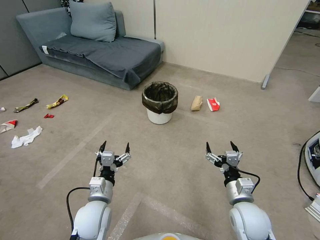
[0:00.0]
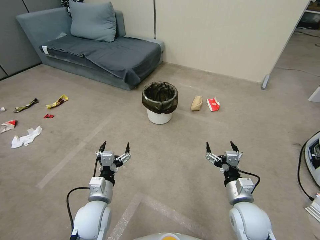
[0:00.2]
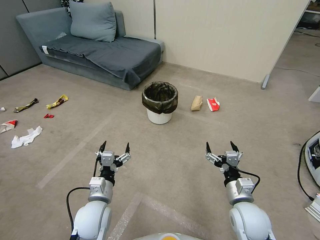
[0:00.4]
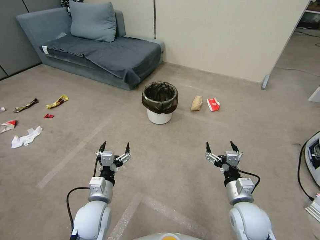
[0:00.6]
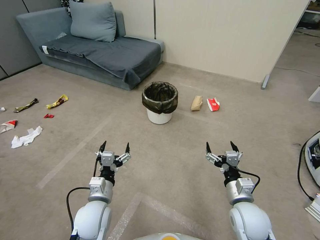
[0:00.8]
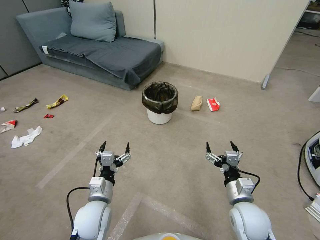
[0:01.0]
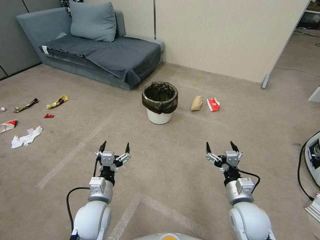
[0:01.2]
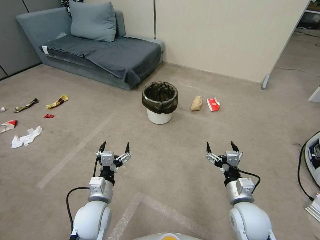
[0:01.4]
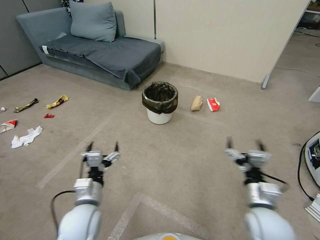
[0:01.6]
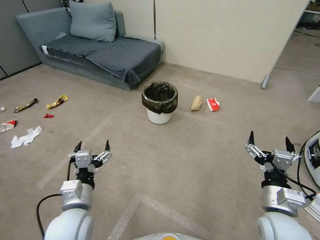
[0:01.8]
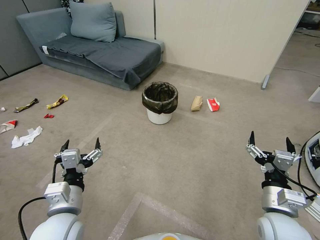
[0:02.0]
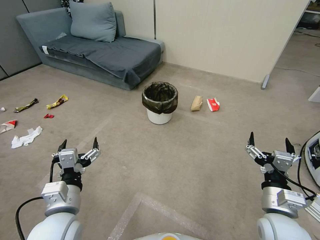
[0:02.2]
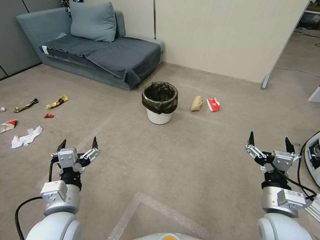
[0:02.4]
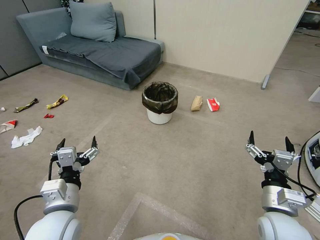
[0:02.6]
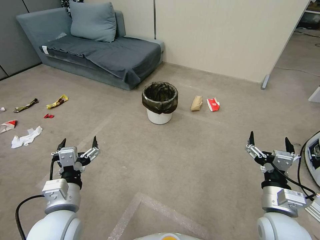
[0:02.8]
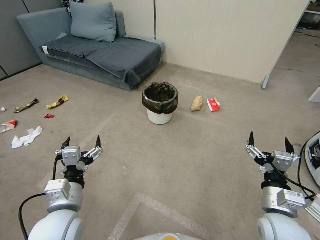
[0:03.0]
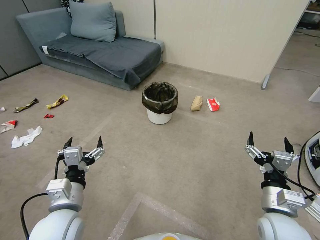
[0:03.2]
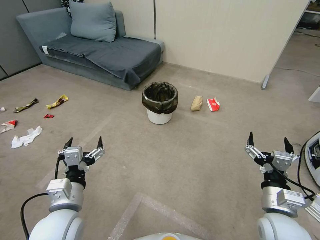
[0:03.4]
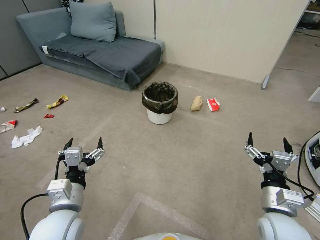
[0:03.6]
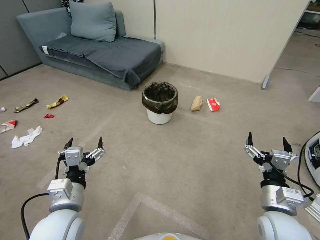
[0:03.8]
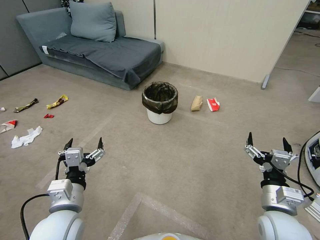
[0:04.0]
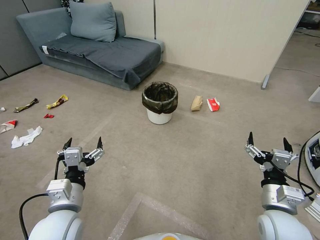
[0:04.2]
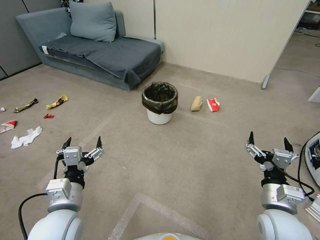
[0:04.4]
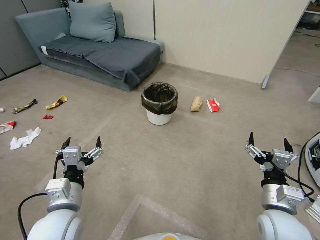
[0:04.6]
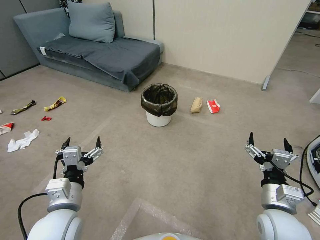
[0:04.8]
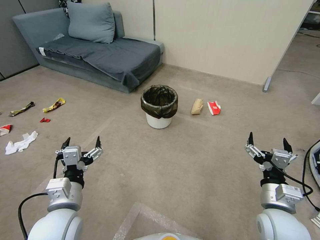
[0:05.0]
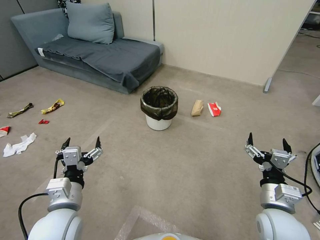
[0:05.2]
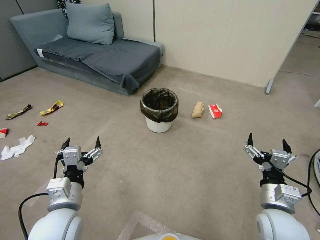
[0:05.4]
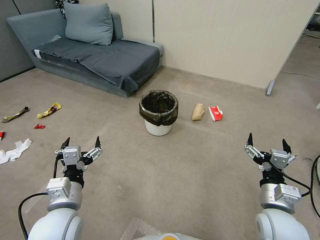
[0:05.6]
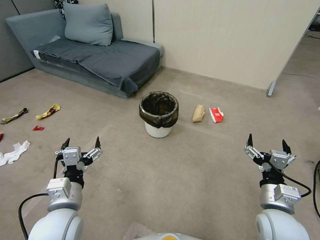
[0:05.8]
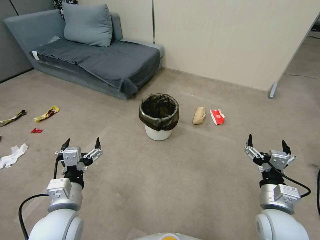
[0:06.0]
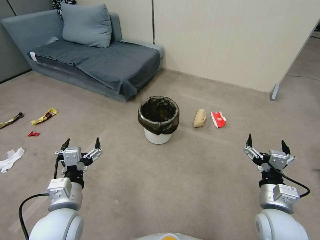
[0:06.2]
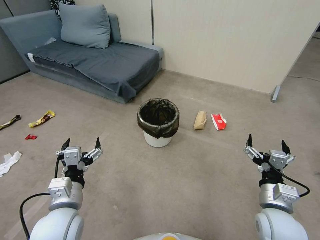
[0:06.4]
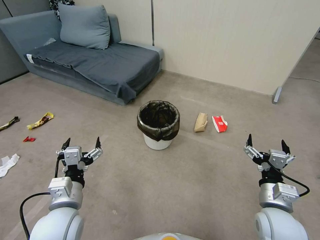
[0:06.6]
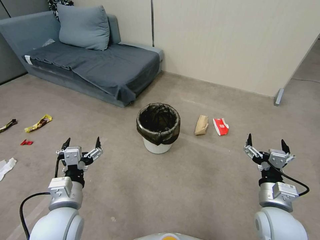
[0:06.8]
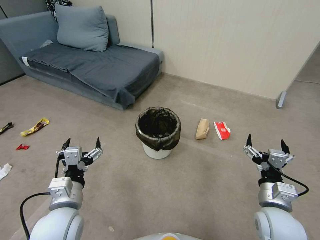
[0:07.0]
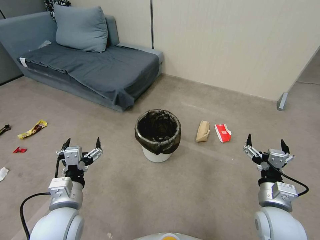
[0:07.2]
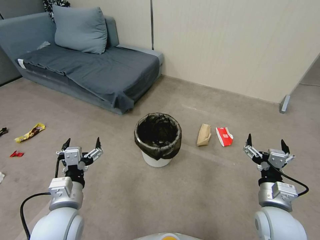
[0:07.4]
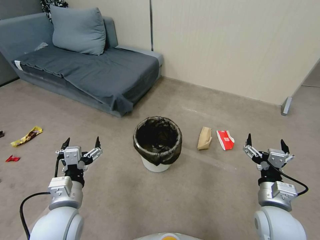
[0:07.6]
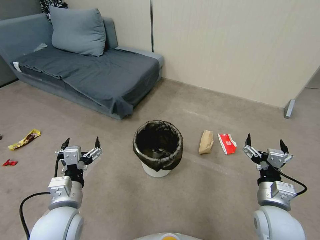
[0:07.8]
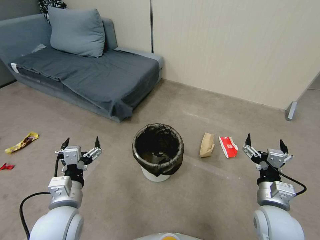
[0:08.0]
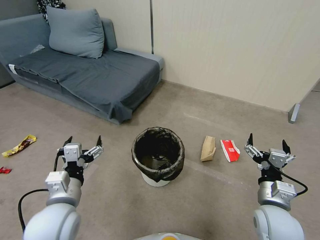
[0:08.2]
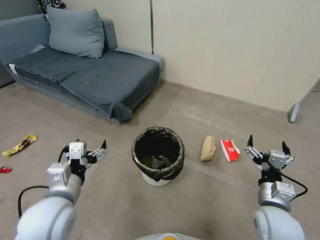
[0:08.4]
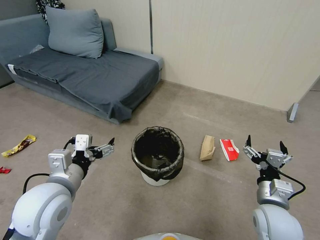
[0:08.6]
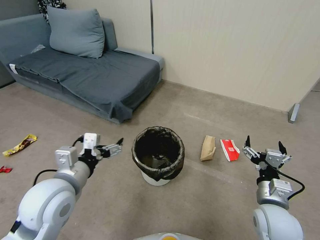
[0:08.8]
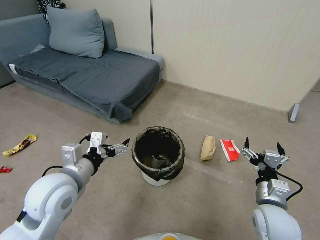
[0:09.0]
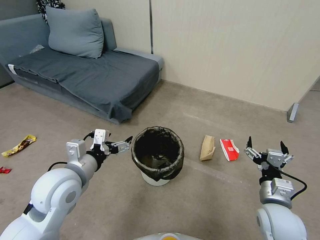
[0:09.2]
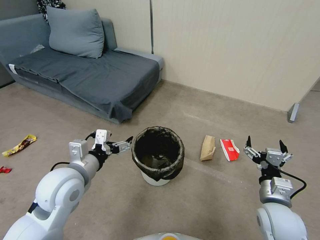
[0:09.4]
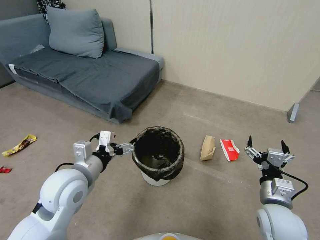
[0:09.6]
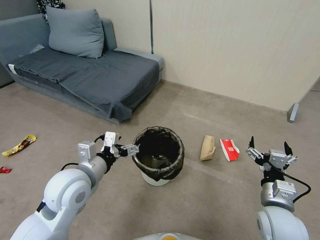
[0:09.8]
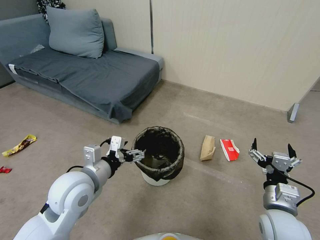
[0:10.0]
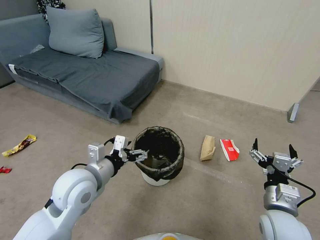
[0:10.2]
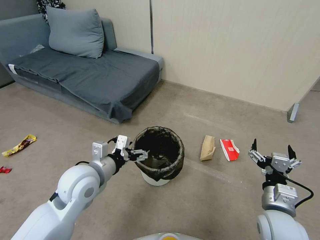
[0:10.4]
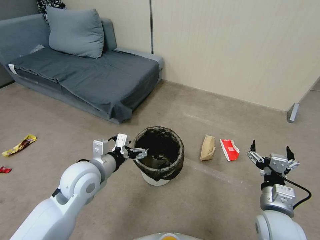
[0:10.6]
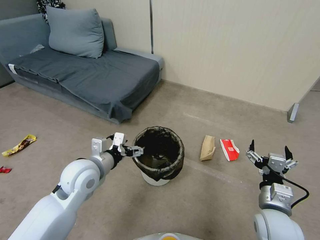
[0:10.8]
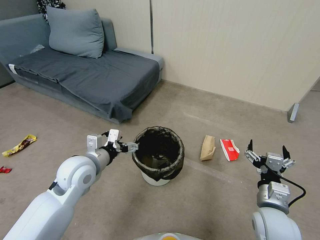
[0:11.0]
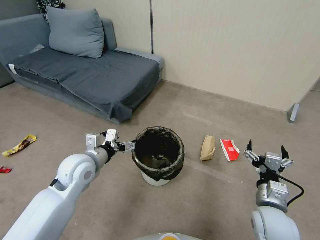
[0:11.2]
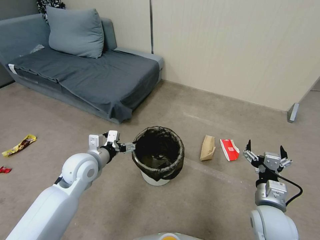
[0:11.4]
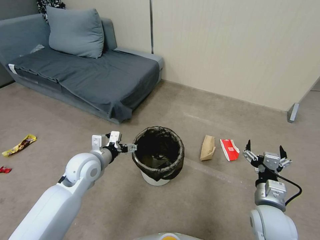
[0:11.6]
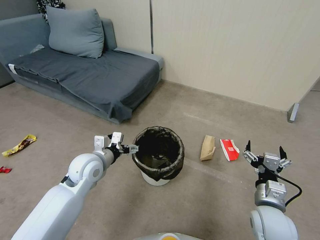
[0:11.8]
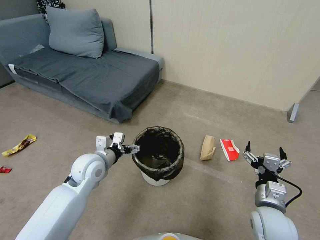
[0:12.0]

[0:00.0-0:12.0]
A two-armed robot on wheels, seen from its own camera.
Task of the whole recording: Pick up the trash bin, then pick up the garbage from the floor and place it into the trash bin.
0:01.6 to 0:03.0: The left gripper goes approximately 5 cm upward.
0:03.0 to 0:04.4: Both grippers stay about where they are.
0:04.4 to 0:06.0: Both grippers stay about where they are.
0:07.6 to 0:09.0: The left gripper goes roughly 10 cm upward and forward.
0:09.0 to 0:10.4: The left gripper shifts by approximately 5 cm.
0:10.4 to 0:12.0: The left gripper heads forward and downward, covering some 10 cm.

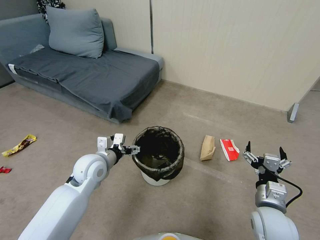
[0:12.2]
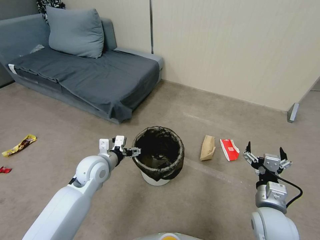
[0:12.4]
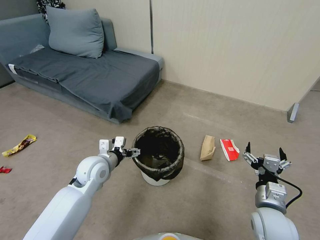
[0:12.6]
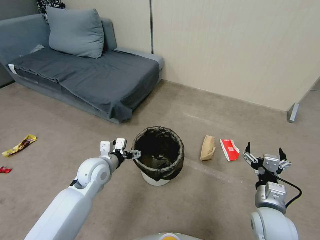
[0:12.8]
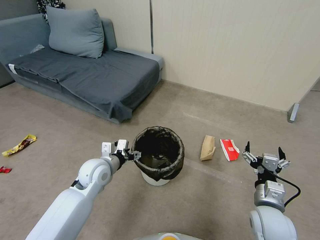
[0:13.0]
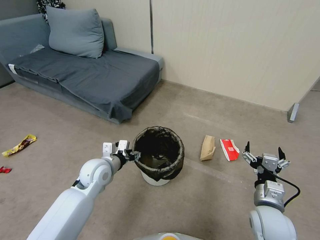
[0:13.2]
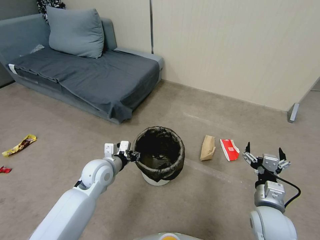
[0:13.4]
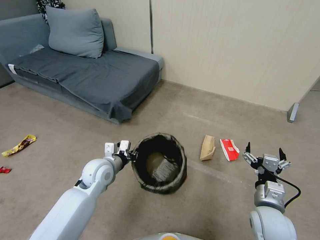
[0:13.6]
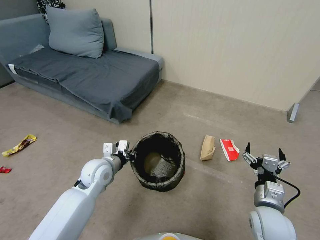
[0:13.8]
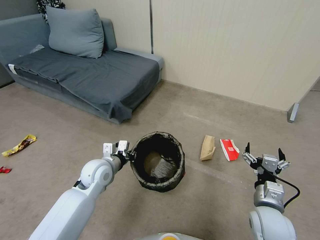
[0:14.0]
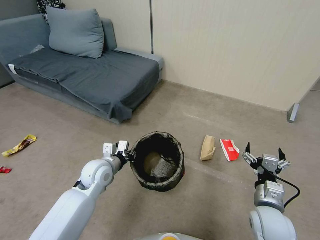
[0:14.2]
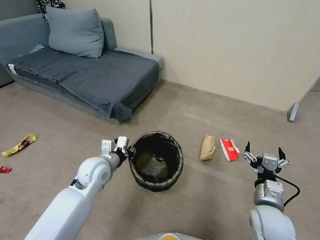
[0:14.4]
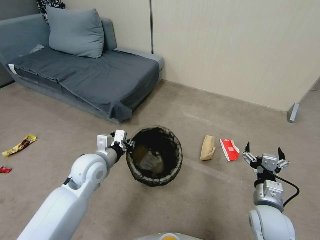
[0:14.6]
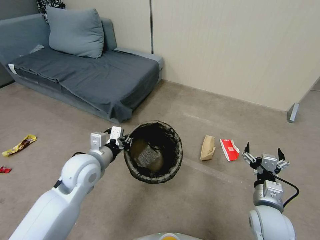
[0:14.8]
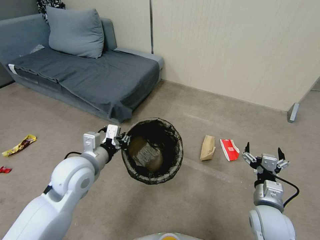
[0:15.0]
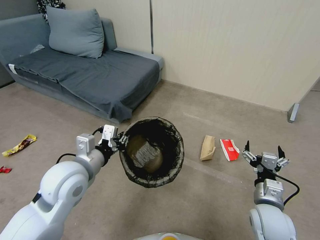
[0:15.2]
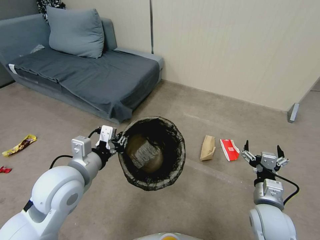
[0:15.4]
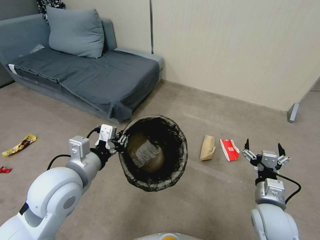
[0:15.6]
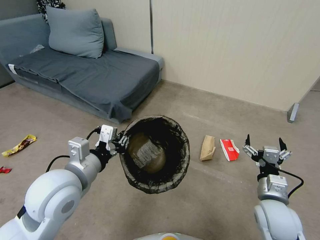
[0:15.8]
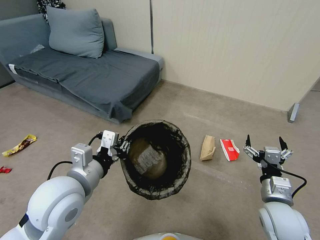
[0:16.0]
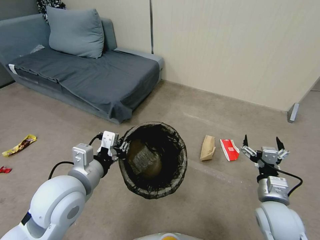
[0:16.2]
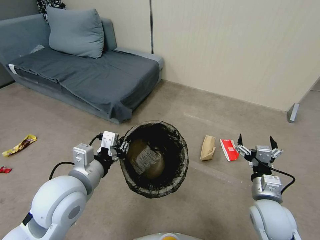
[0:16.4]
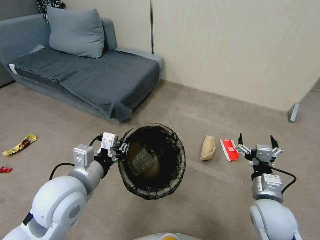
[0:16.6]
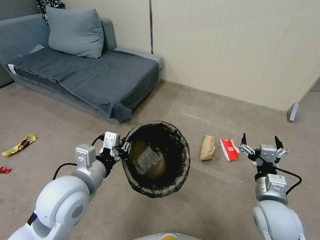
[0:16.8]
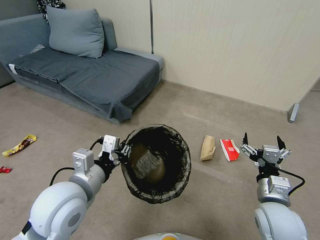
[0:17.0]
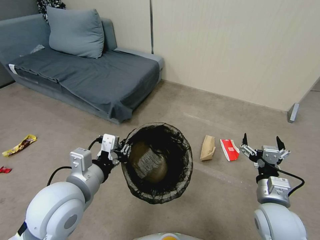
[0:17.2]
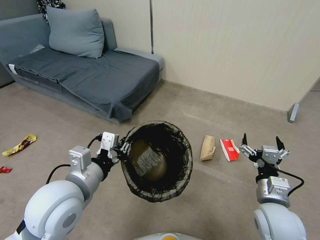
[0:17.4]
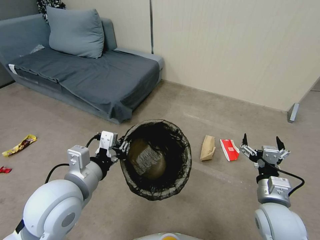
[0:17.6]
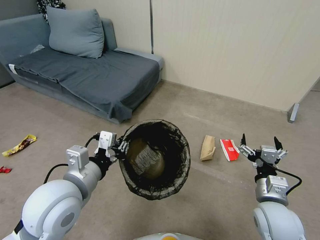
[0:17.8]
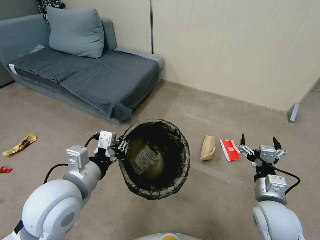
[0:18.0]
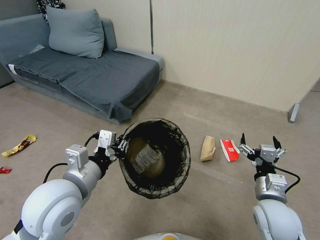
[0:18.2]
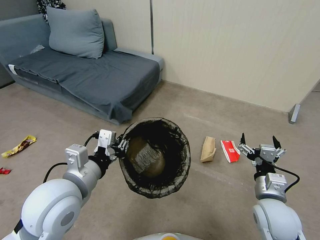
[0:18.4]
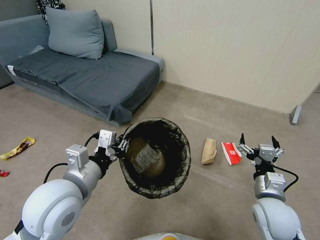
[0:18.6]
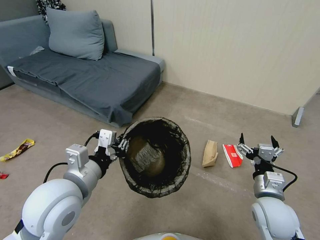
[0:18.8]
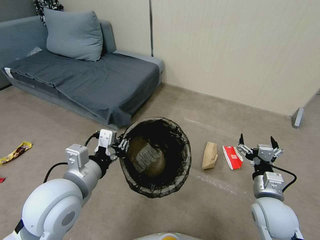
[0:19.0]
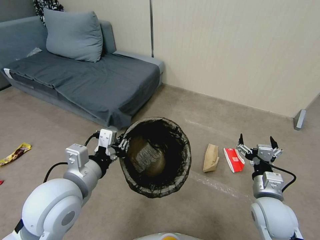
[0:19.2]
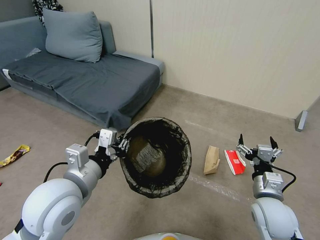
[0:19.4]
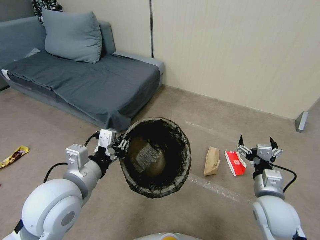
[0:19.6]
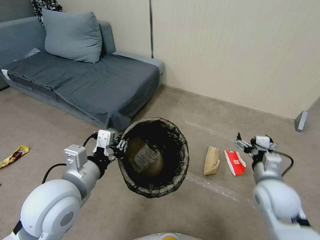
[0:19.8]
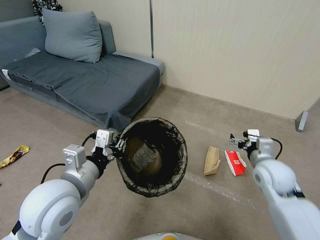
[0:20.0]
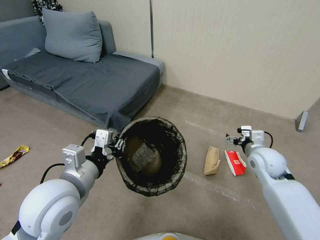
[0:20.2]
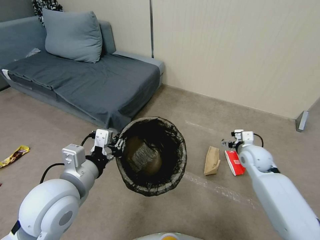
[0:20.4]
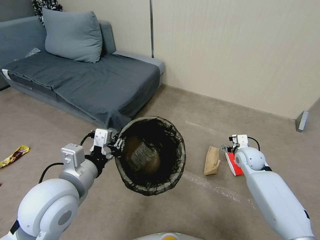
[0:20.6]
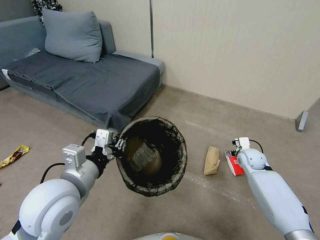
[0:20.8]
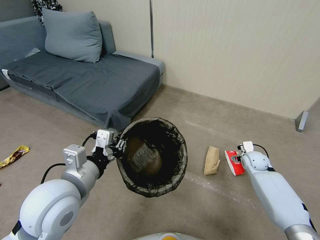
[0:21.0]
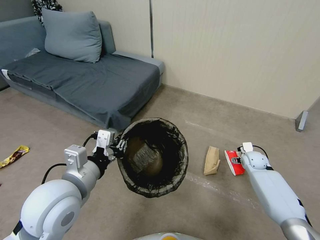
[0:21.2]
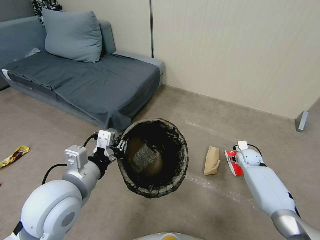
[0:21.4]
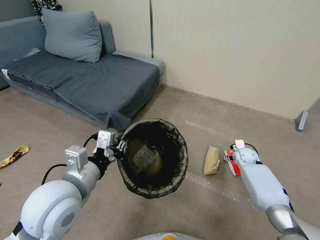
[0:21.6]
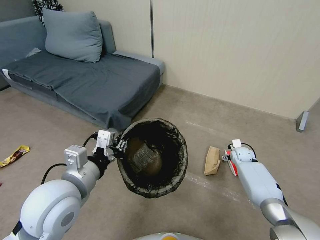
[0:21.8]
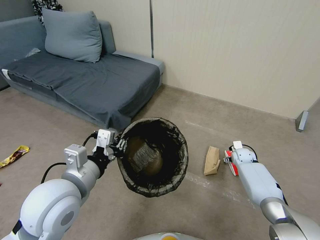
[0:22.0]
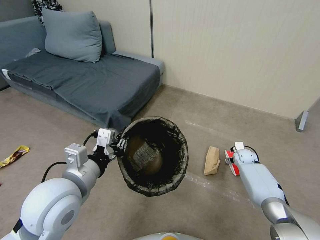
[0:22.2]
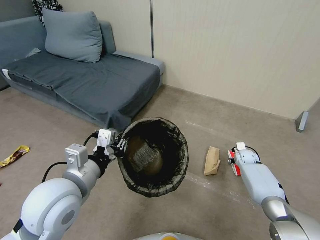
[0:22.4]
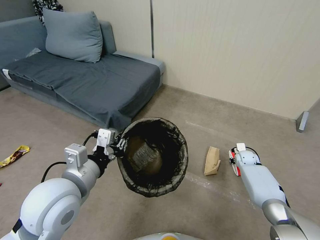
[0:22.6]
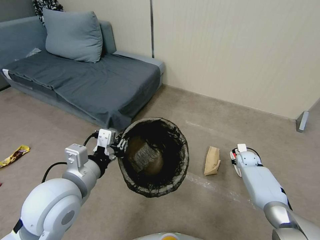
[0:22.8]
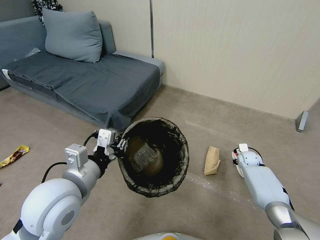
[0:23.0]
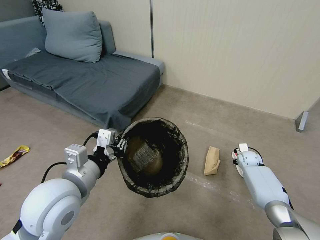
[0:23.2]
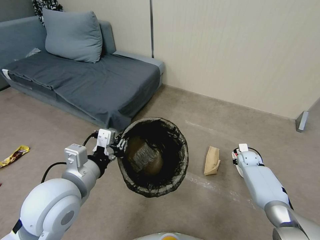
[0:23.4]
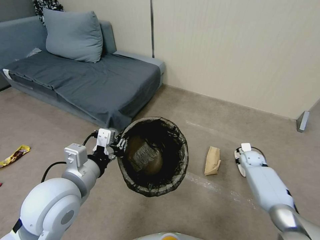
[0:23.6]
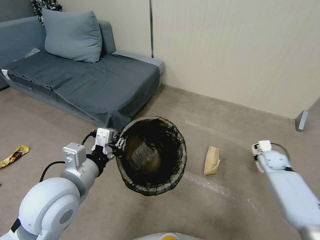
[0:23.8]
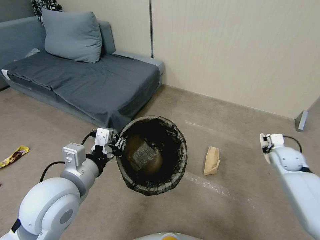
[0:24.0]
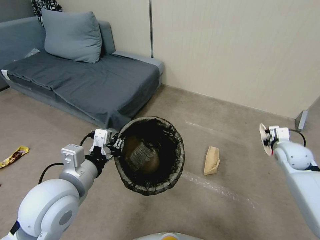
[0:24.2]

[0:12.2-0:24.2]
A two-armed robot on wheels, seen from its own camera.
Task of the whole recording: Pick up the trash bin, then pick up the garbage from the floor and place it into the trash bin.
0:12.2 to 0:13.8: The left gripper closes up.
0:13.8 to 0:15.2: The left gripper shifts approximately 15 cm upward and backward.
0:15.2 to 0:16.6: There are only small adjustments of the grippers.
0:16.6 to 0:18.2: The grippers make only small movements.
0:18.2 to 0:19.8: The right gripper moves about 5 cm.
0:19.8 to 0:21.2: The right gripper heads forward, downward and to the right, covering approximately 25 cm.
0:21.2 to 0:22.6: The right gripper shifts by roughly 5 cm, and closes up.
0:22.6 to 0:24.2: The right gripper is displaced upward and backward by roughly 20 cm, and closes up.
